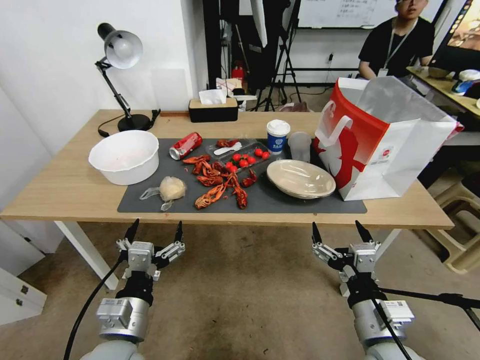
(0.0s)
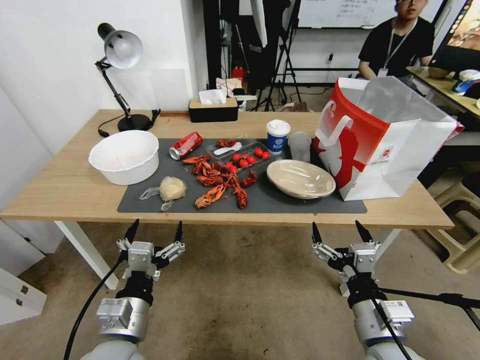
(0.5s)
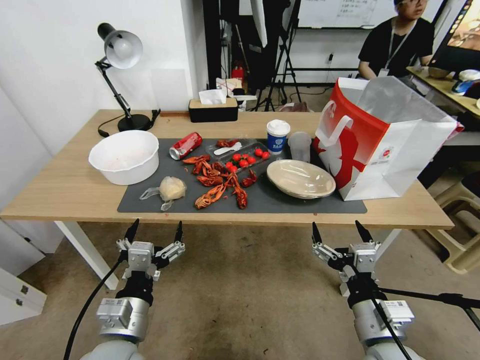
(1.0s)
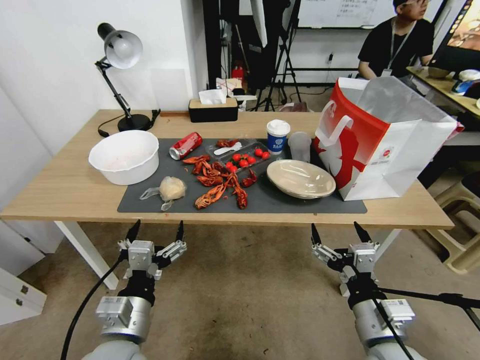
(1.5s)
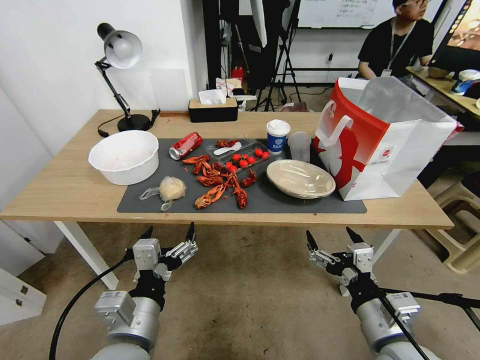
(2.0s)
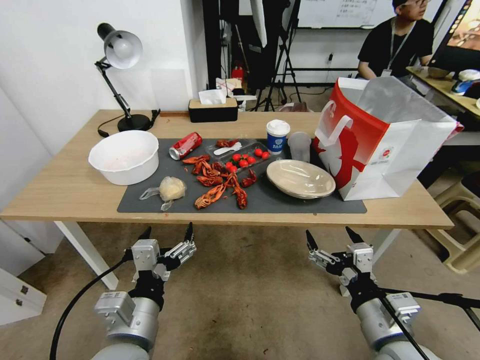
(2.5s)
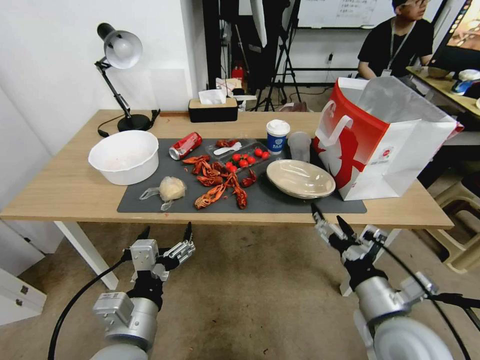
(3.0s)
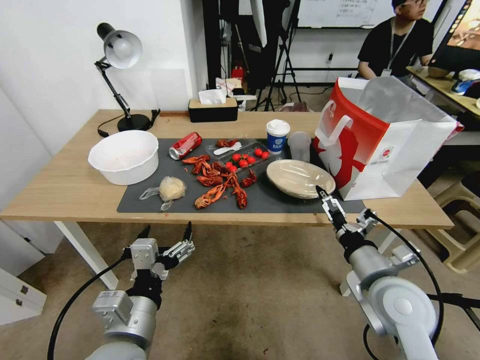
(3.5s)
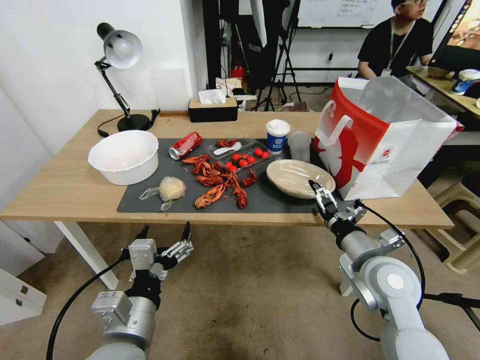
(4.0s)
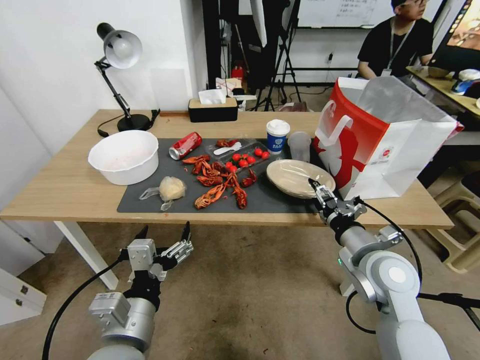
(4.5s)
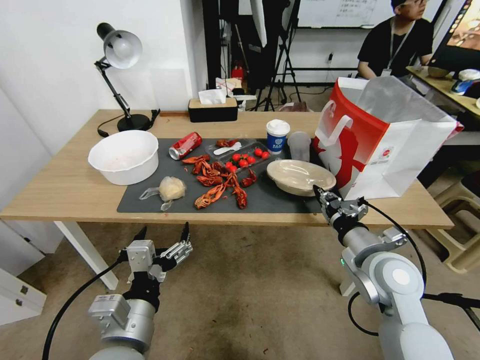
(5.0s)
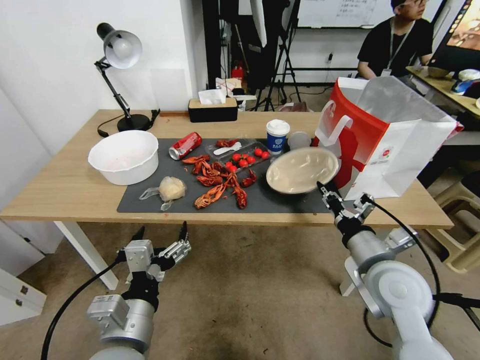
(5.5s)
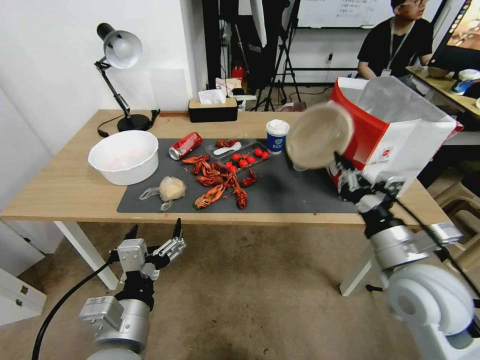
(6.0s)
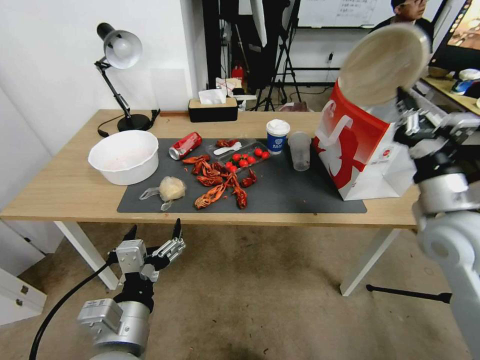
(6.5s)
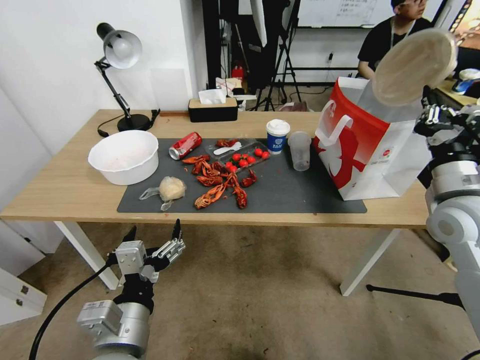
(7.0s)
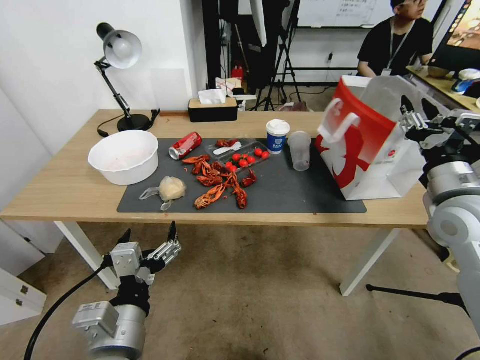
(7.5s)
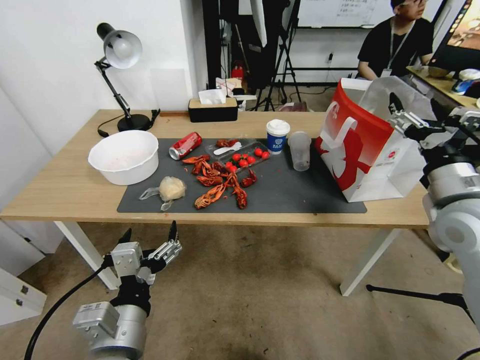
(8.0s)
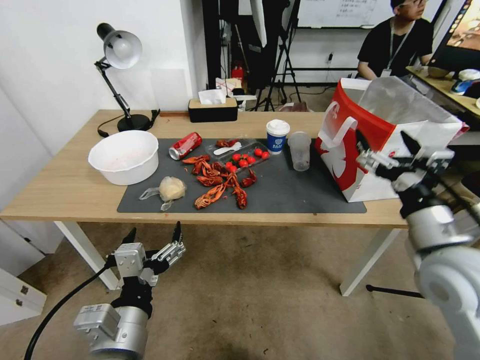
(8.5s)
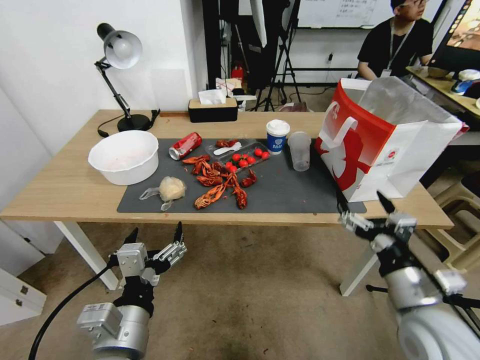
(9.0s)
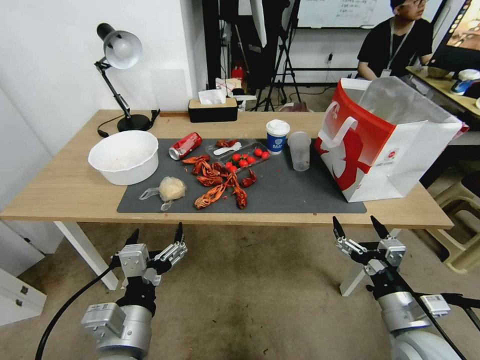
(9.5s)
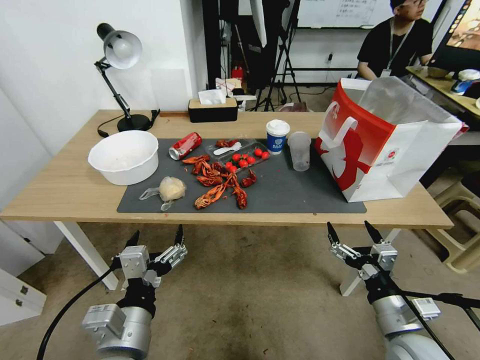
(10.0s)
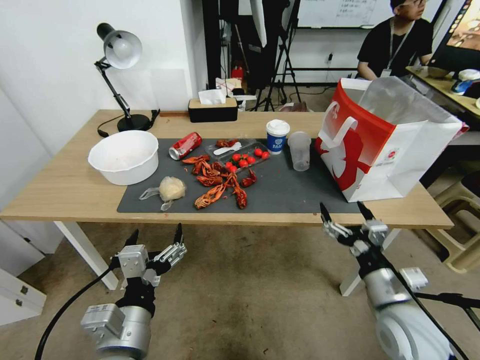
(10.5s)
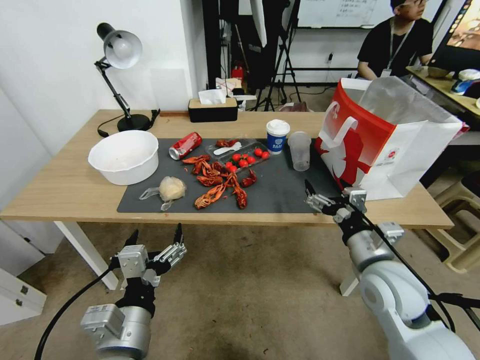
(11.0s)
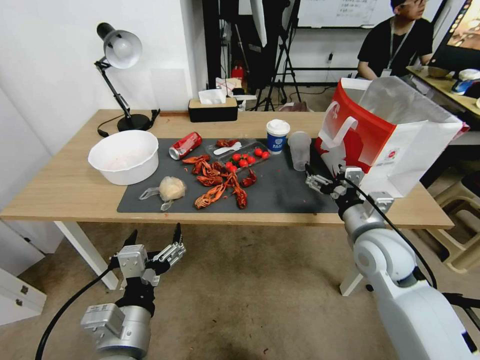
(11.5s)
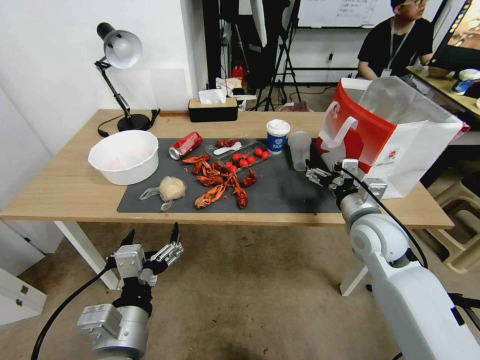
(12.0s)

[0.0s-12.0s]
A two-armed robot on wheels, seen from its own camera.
2.0s to 4.0s: The right gripper travels forward by about 15 cm.
4.0s to 6.0s: The right gripper goes approximately 5 cm upward, and closes.
6.0s to 8.0s: The right gripper shifts about 15 cm to the right, forward and upward, and opens.
8.0s to 10.0s: The right gripper goes about 25 cm downward and backward.
10.0s to 12.0s: The right gripper goes approximately 20 cm forward and upward.

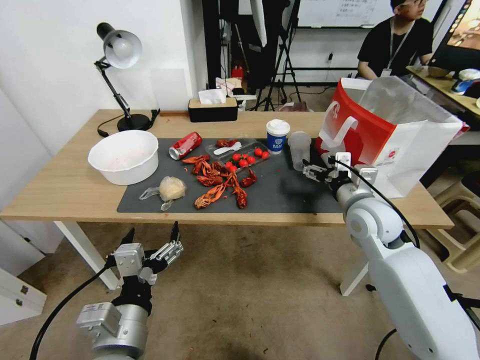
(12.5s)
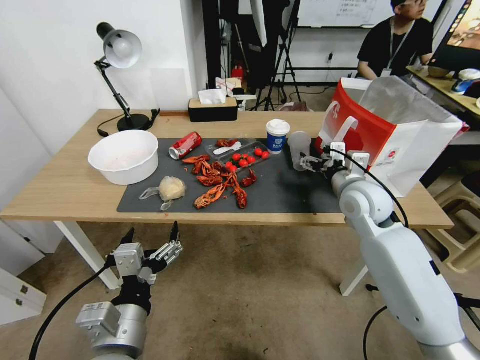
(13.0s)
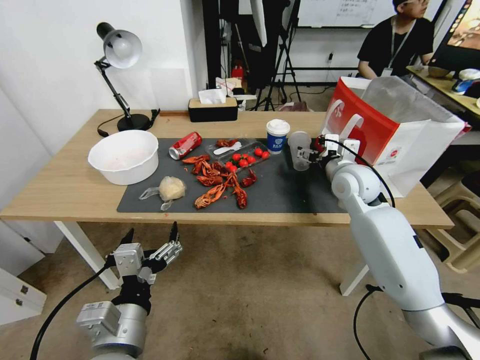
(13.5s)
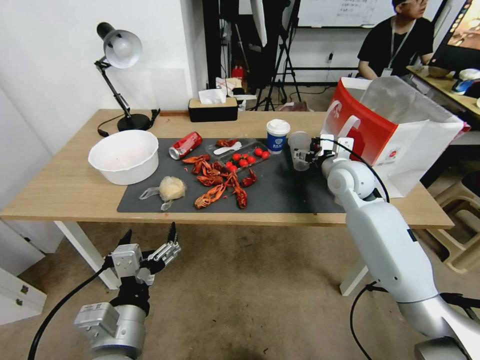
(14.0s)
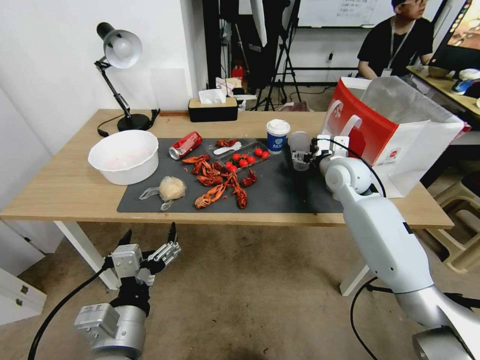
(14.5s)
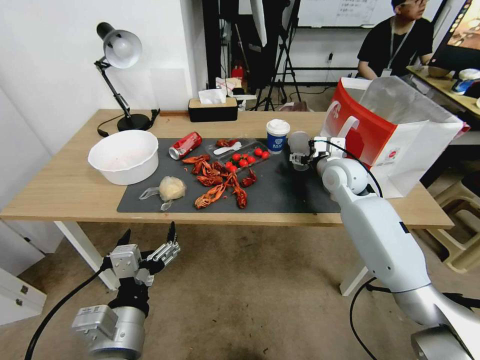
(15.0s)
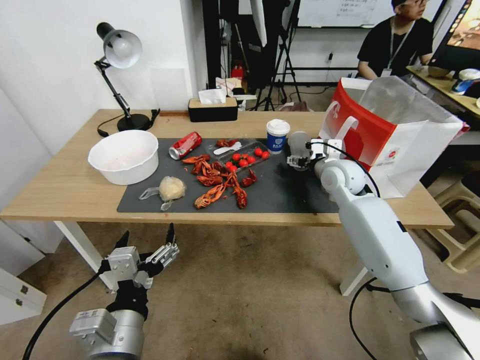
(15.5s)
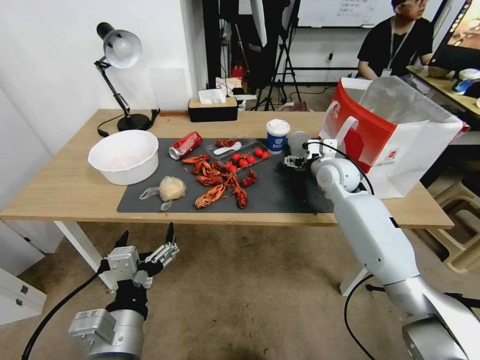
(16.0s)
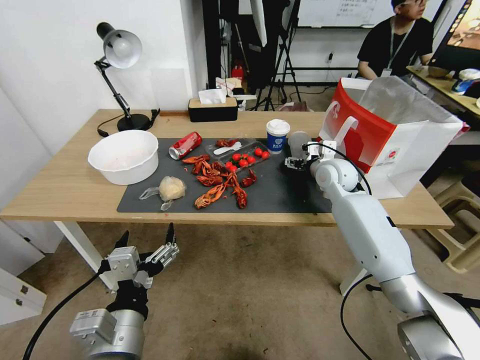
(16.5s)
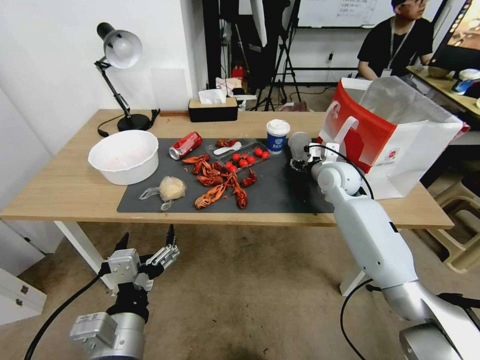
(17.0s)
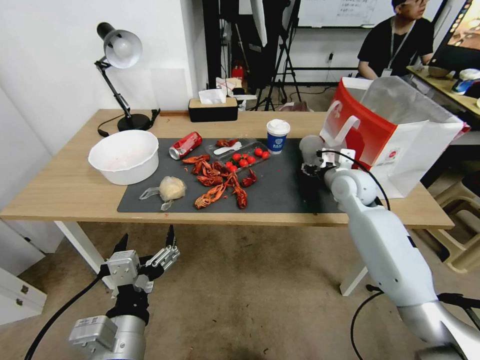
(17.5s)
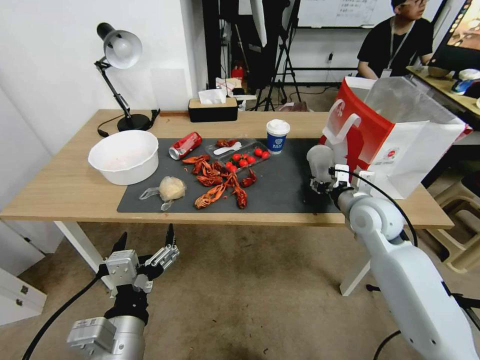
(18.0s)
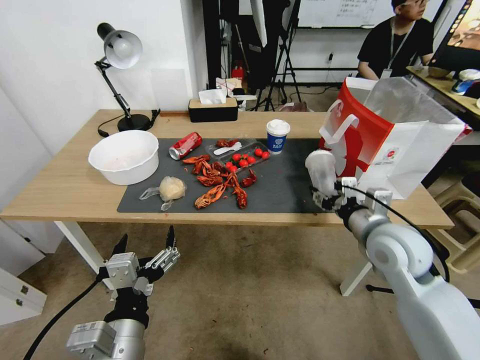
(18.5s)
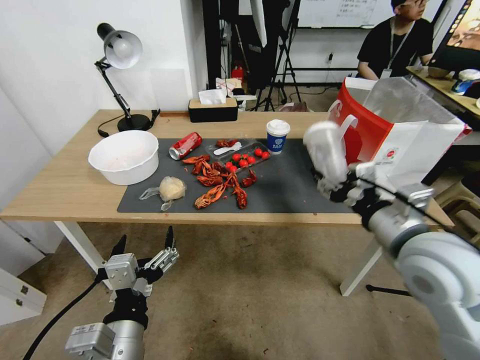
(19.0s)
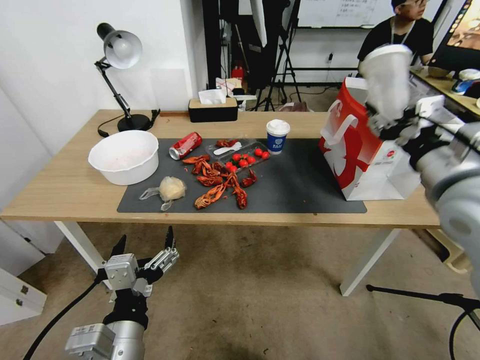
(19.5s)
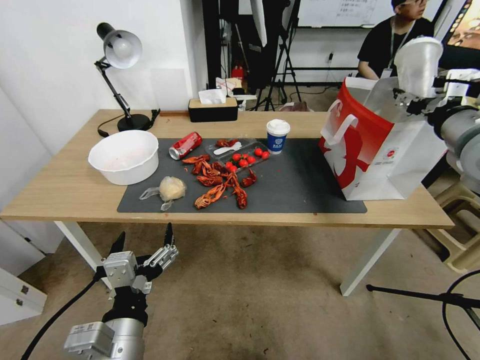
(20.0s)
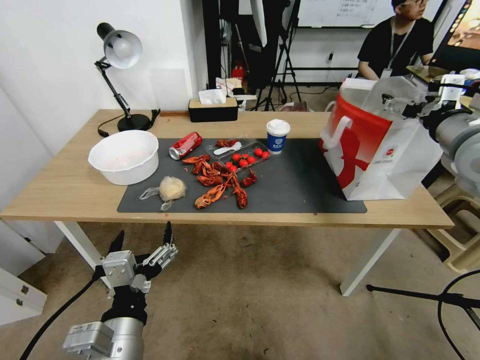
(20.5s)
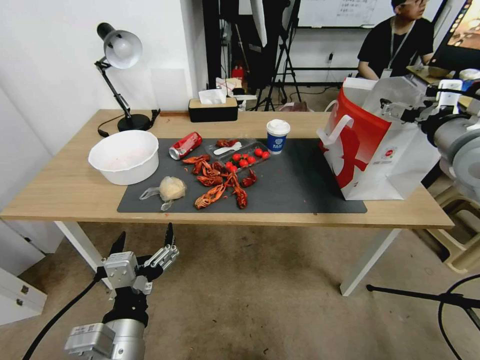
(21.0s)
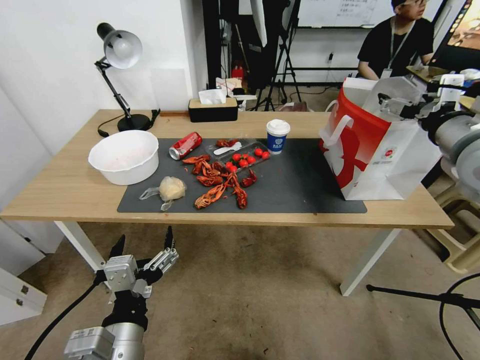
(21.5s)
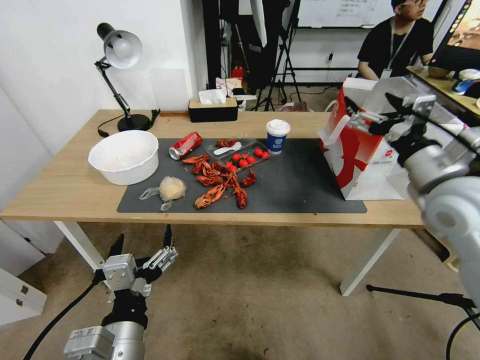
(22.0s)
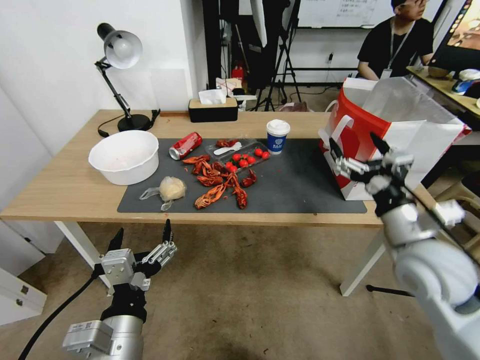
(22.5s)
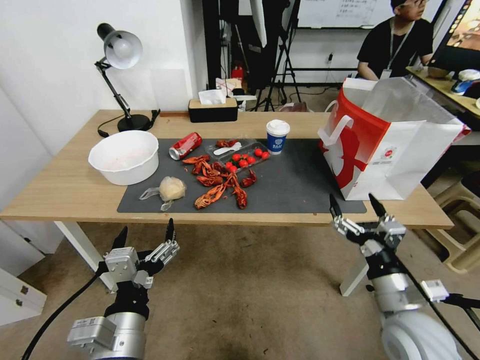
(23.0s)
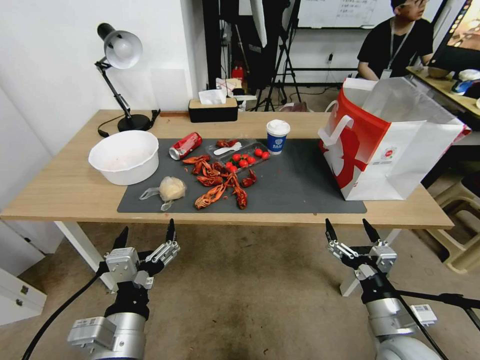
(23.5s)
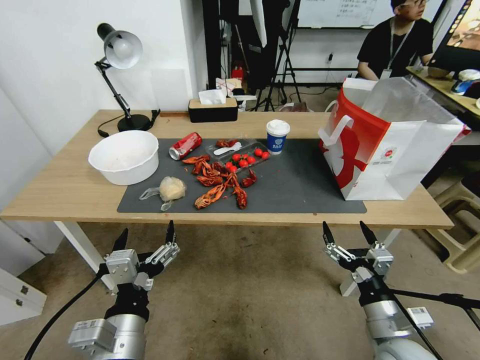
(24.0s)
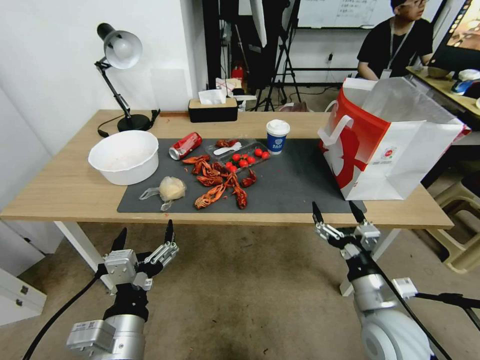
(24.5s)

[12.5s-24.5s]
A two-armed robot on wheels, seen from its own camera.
12.5s to 14.5s: The right gripper heads forward, covering approximately 15 cm.
14.5s to 16.5s: The grippers make only small movements.
16.5s to 18.5s: The right gripper moves backward, about 20 cm, and closes up.
18.5s to 20.5s: The right gripper travels upward and to the right by some 20 cm, and opens up.
20.5s to 22.5s: The right gripper shifts about 20 cm downward, backward and to the left.
22.5s to 24.5s: The right gripper travels downward and backward by about 15 cm.

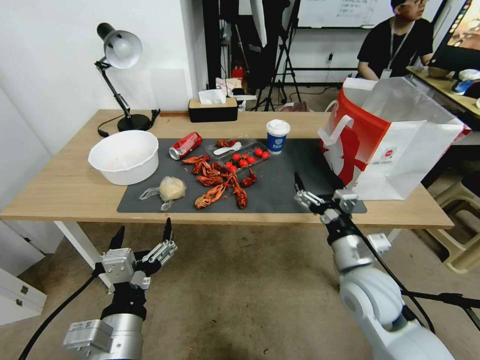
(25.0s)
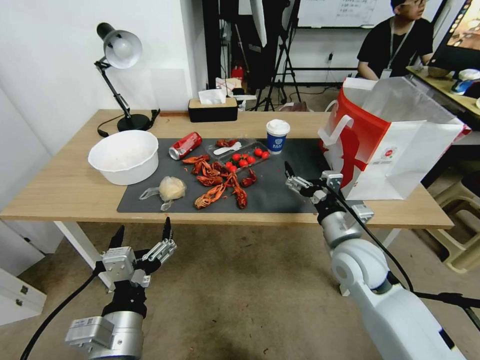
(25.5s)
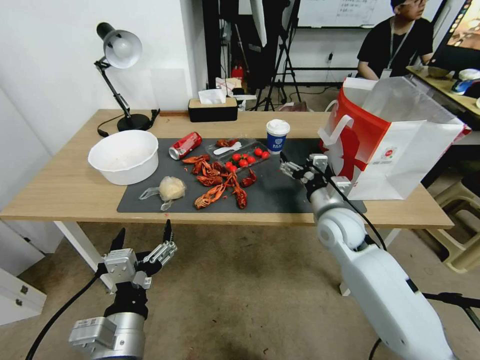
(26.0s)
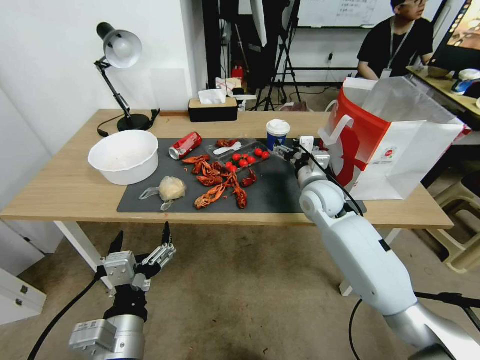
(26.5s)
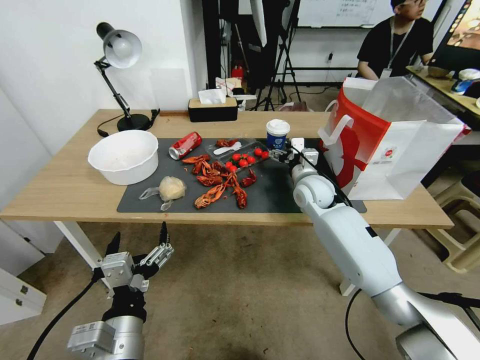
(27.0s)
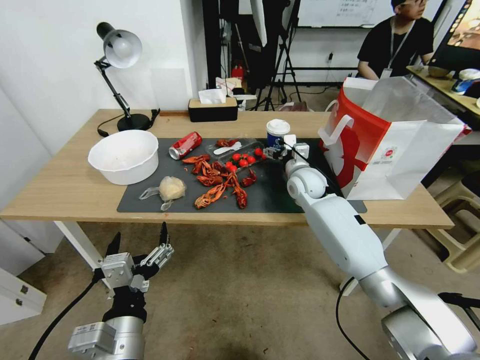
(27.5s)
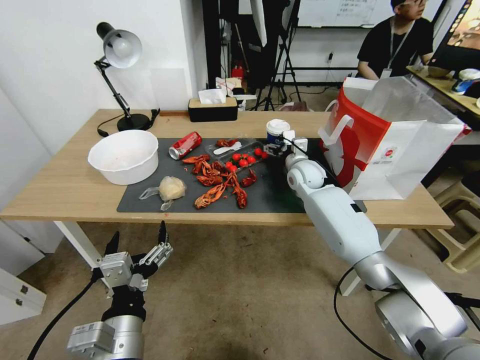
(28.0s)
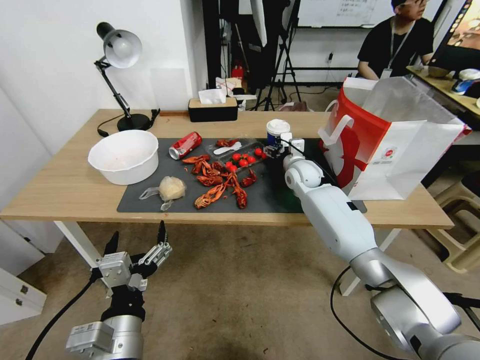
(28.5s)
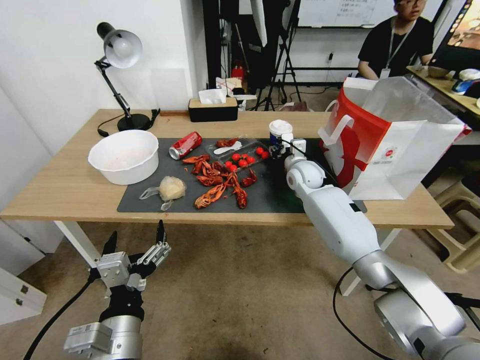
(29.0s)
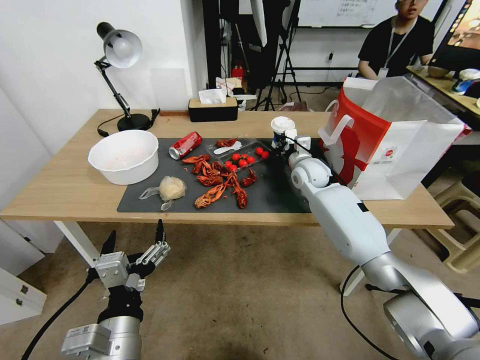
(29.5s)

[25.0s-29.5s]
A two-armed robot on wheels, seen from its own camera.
25.0s to 27.0s: The right gripper goes about 20 cm forward.
27.0s to 29.5s: The right gripper heads forward, covering approximately 10 cm, and closes its fingers.
